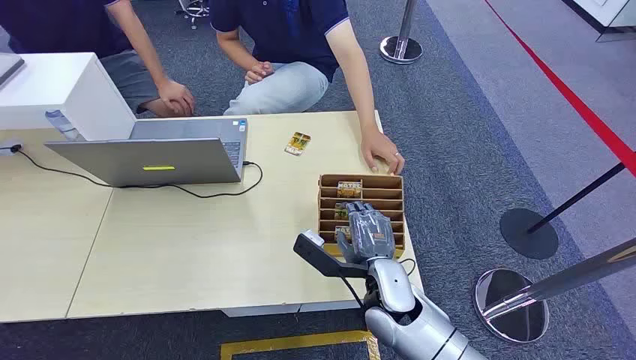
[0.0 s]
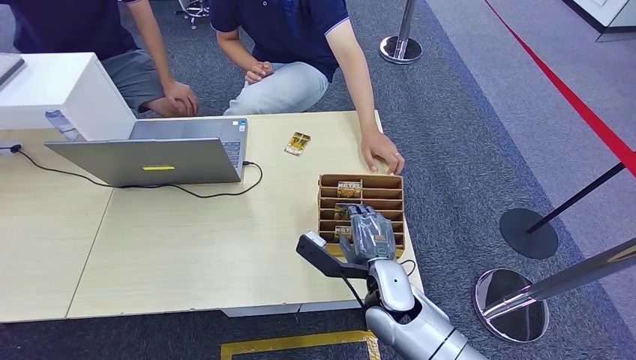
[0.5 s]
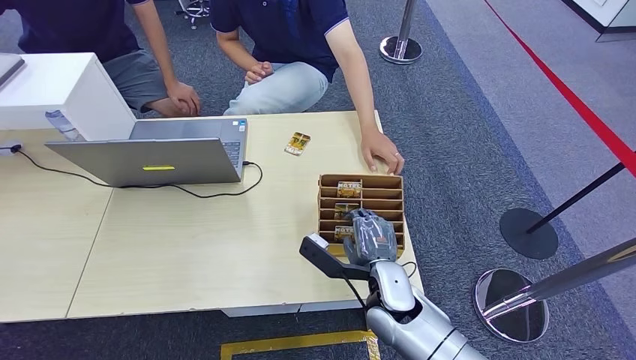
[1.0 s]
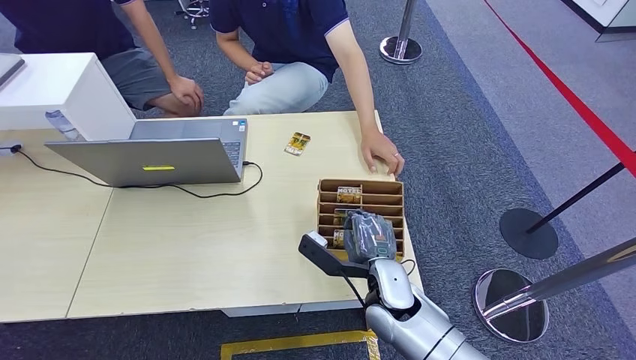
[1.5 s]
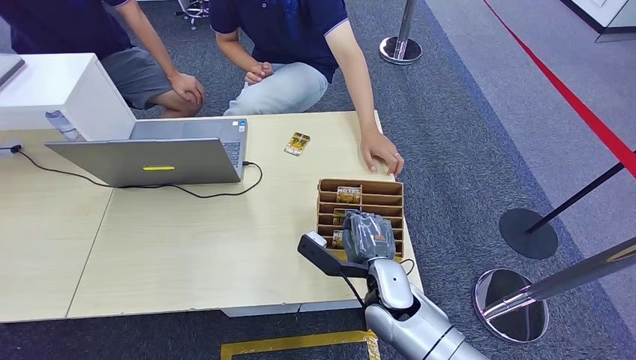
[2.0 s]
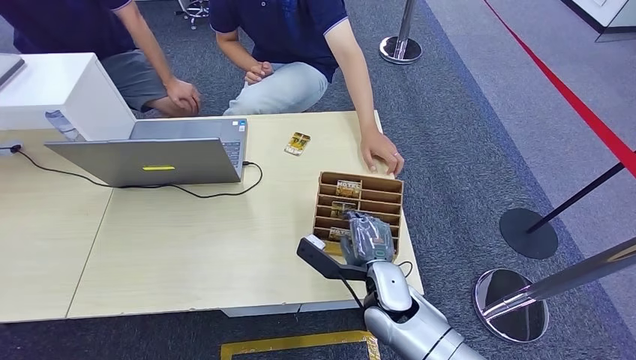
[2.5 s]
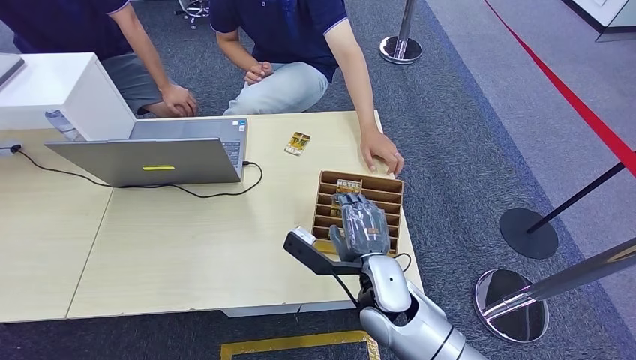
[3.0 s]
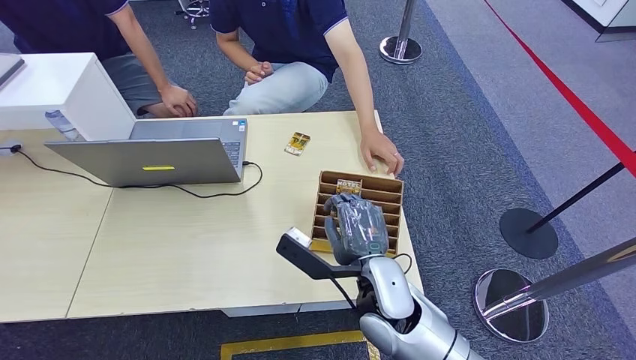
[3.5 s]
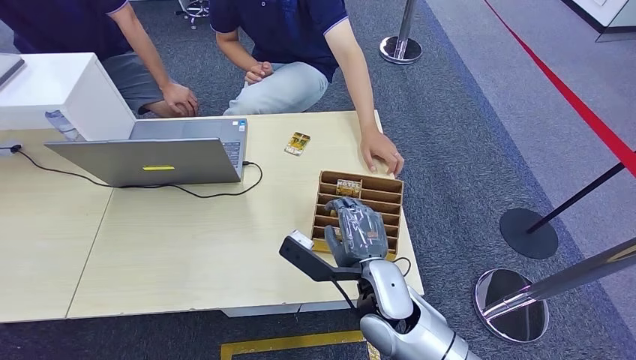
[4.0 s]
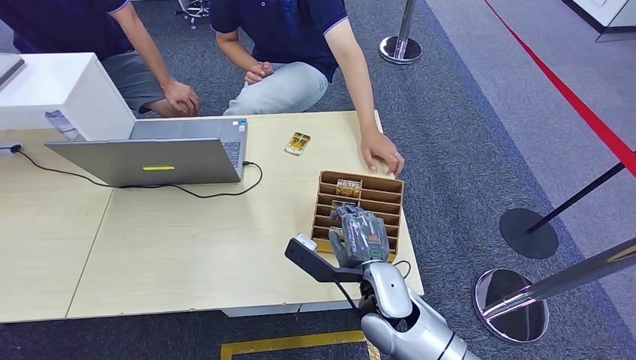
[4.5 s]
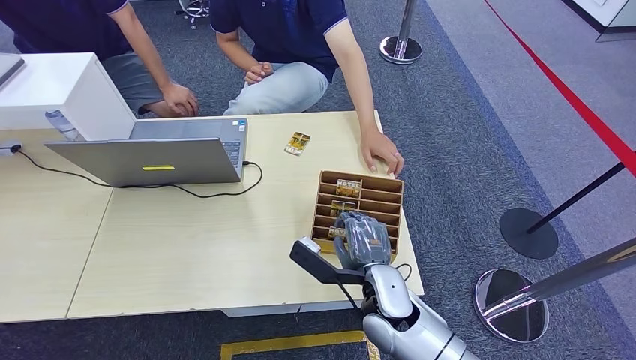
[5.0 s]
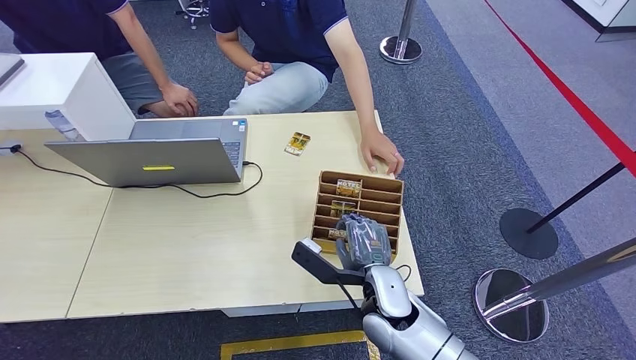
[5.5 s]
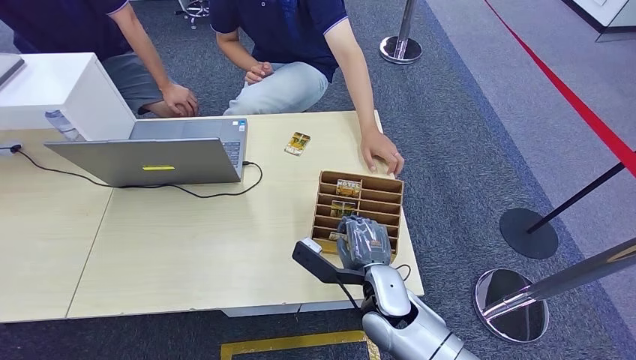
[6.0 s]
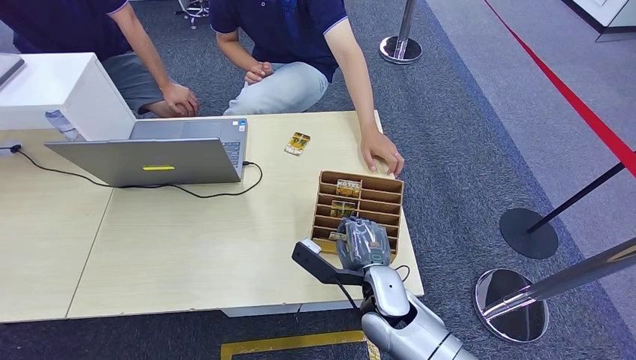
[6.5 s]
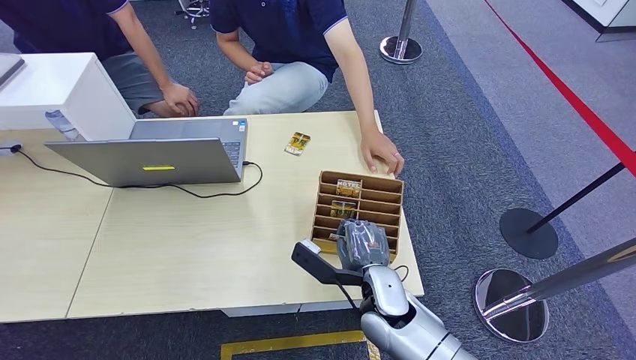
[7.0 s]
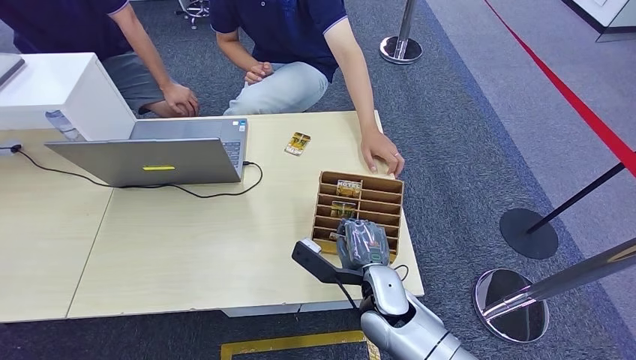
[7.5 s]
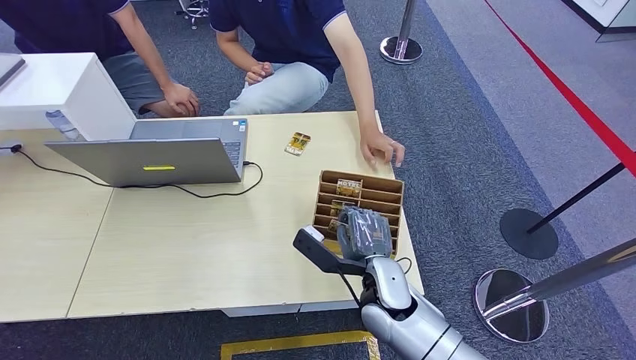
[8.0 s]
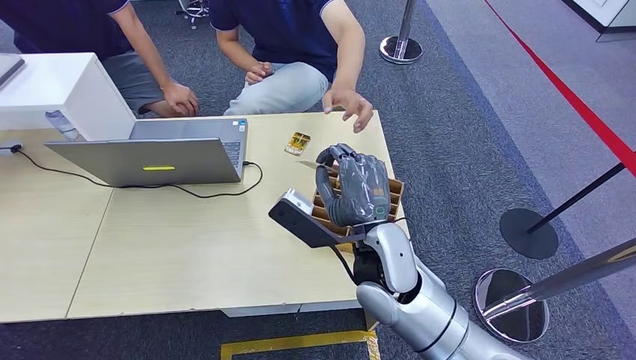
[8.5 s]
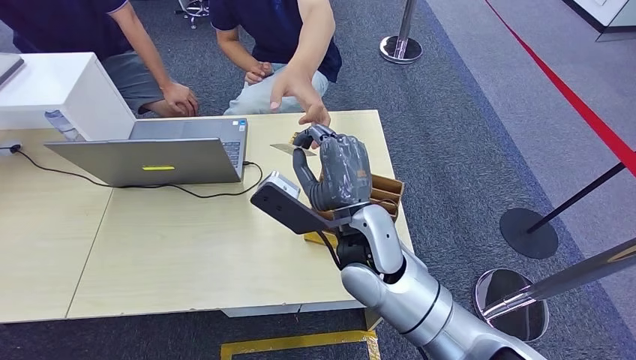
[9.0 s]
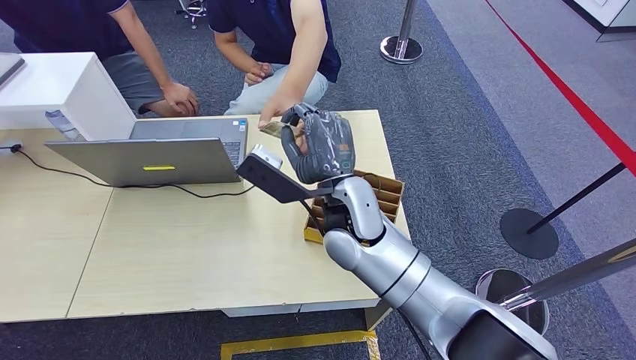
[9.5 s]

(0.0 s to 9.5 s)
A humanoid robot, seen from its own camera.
Step, 0.0 s - 8.5 s: Pick up the room card from the card holder.
Step, 9.0 s - 9.5 s: Hand the room card to the target.
2.0 s - 7.5 s: Both hands stay put.
7.5 s - 9.5 s: The right hand is displaced upward, forward and to the left by approximately 20 cm.

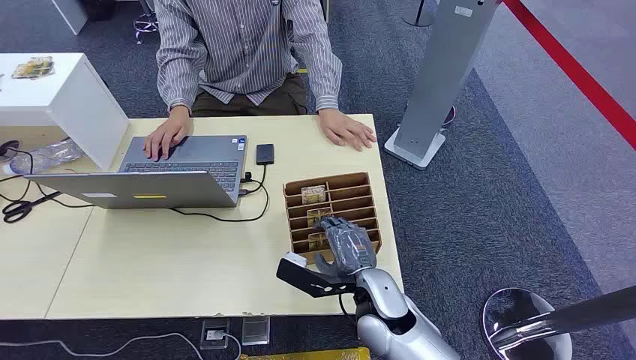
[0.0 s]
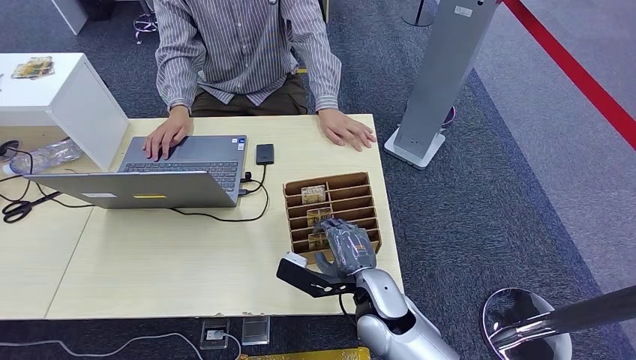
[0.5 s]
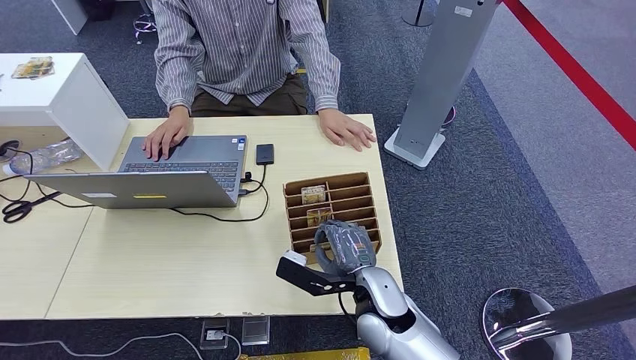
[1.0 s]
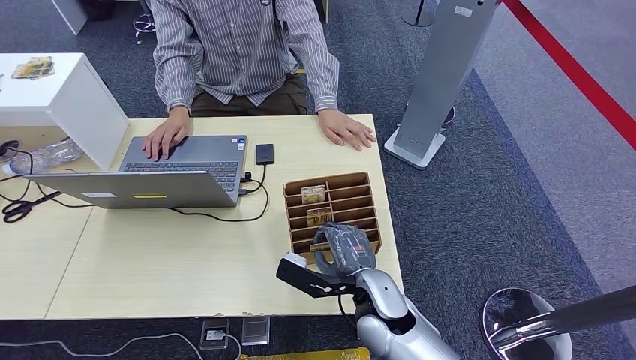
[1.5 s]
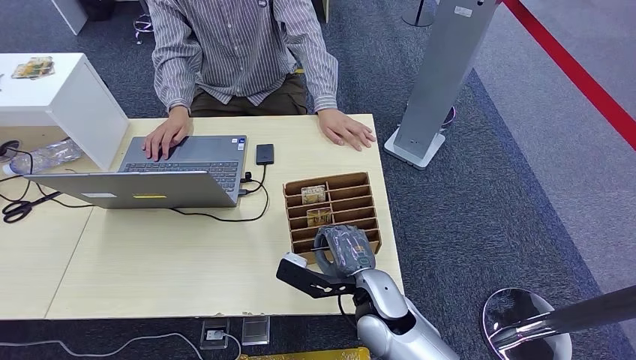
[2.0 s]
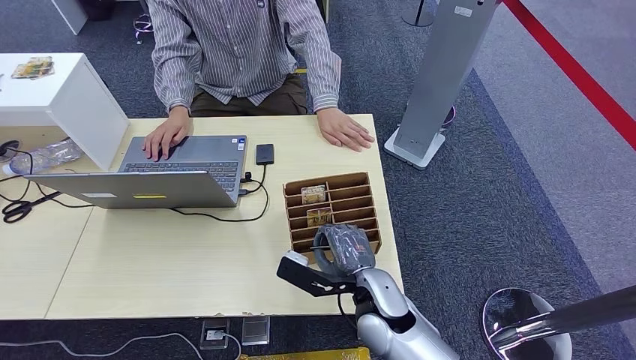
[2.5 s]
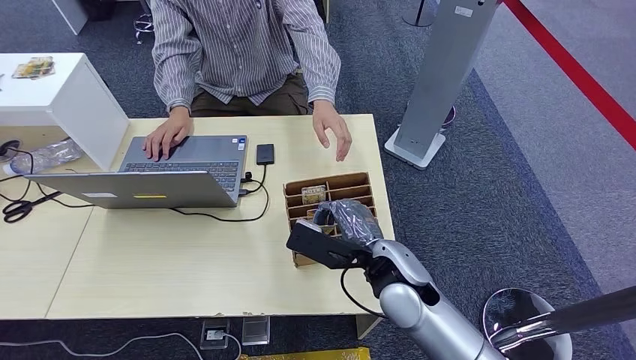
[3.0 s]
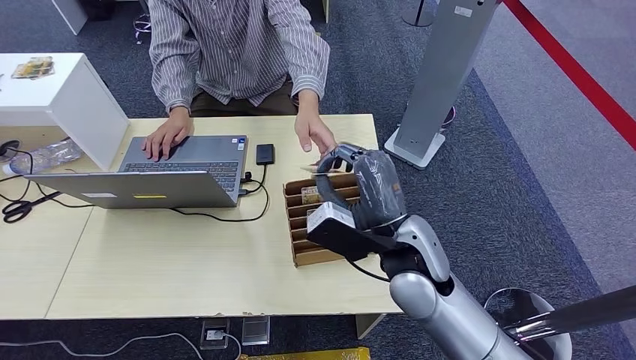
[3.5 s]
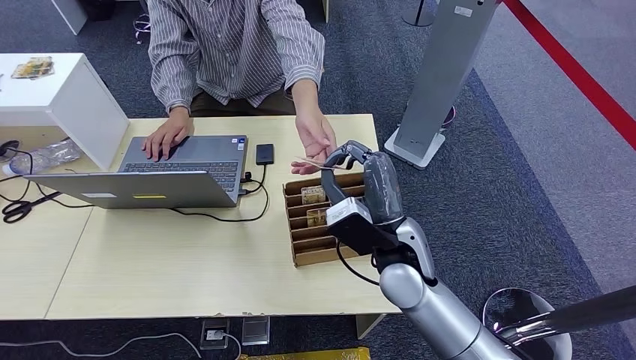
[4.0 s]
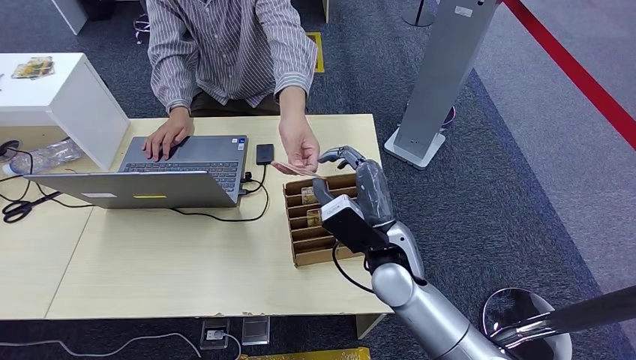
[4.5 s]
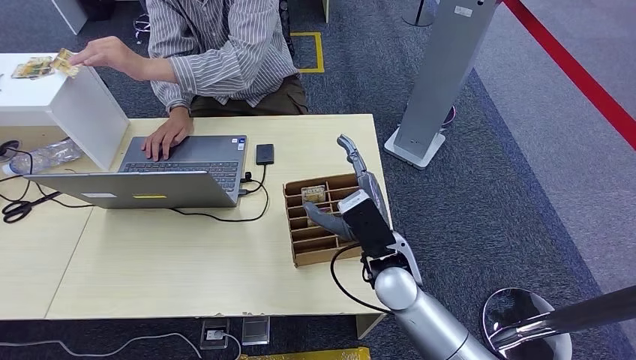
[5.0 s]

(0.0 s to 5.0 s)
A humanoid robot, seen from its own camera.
Step, 0.0 s - 3.0 s: Pick up the room card from the card holder.
Step, 4.5 s - 5.0 s: Hand the room card to the target.
2.5 s - 5.0 s: The right hand travels upward by approximately 5 cm.
